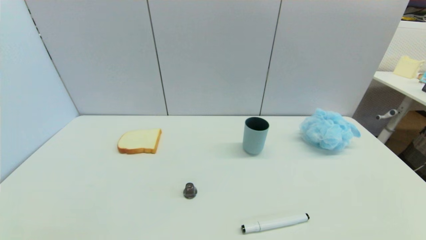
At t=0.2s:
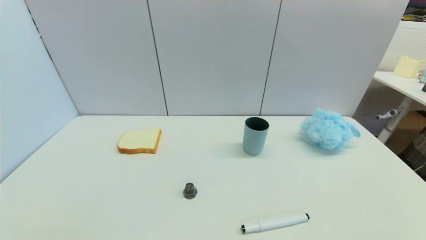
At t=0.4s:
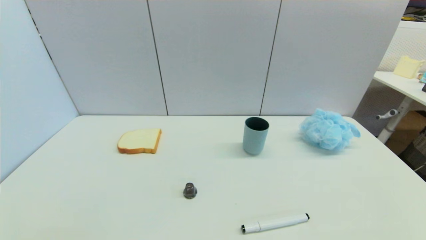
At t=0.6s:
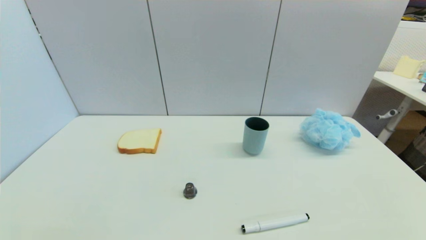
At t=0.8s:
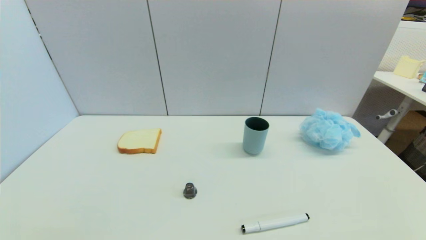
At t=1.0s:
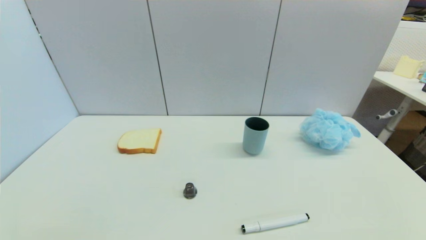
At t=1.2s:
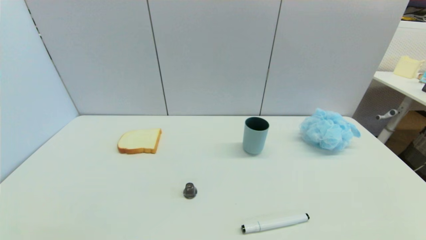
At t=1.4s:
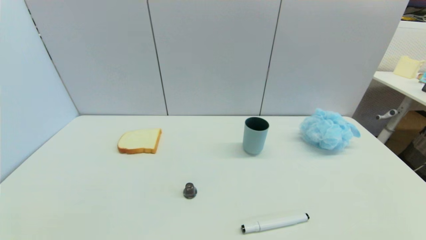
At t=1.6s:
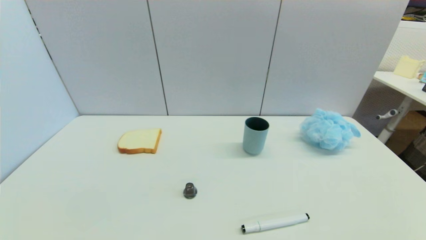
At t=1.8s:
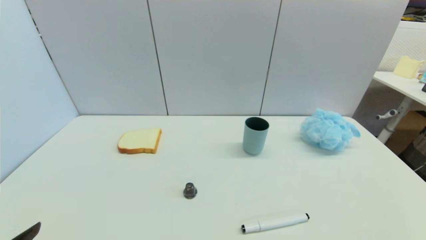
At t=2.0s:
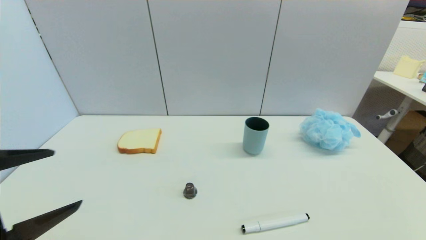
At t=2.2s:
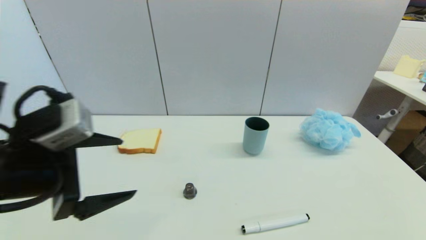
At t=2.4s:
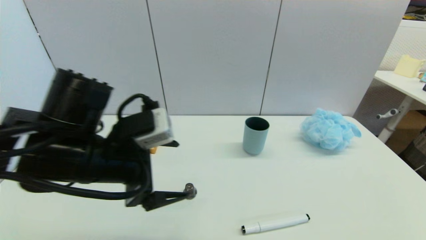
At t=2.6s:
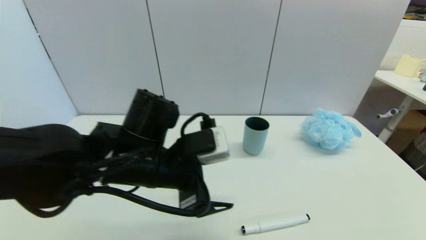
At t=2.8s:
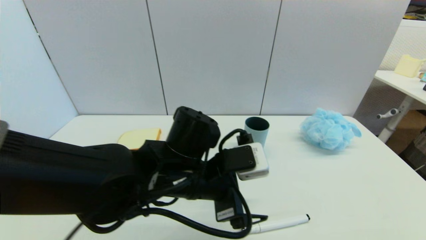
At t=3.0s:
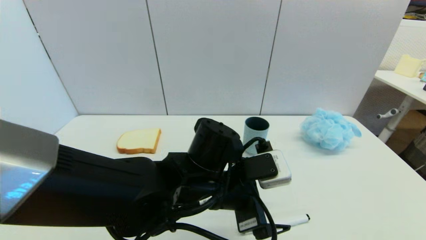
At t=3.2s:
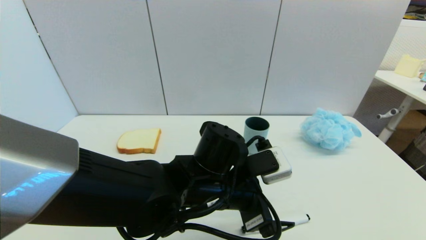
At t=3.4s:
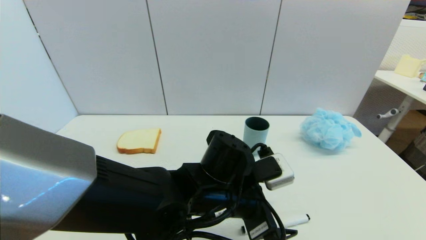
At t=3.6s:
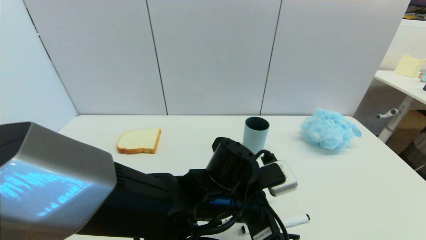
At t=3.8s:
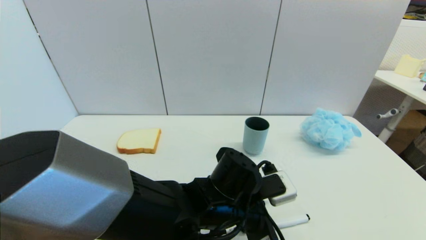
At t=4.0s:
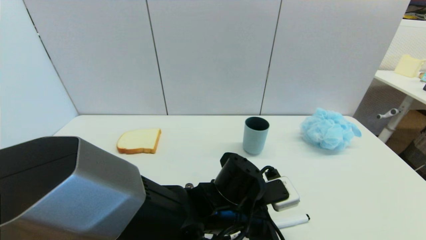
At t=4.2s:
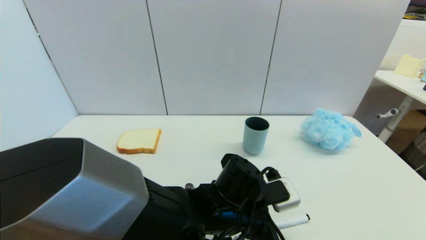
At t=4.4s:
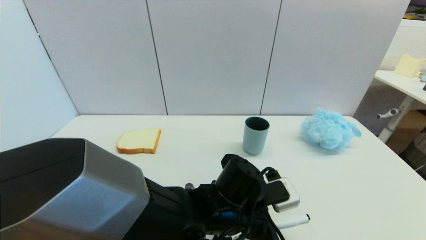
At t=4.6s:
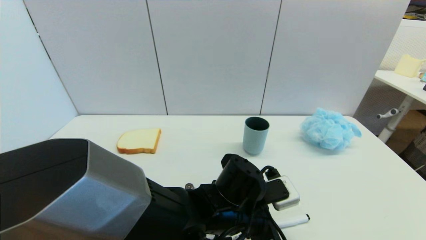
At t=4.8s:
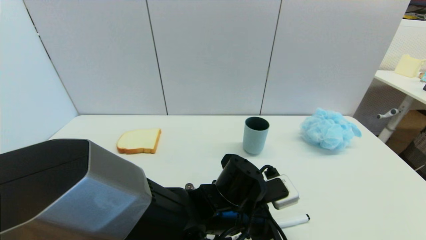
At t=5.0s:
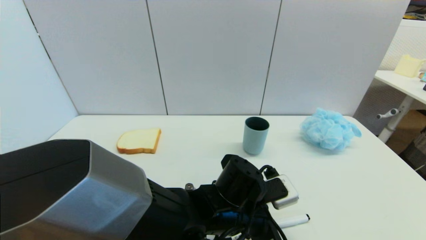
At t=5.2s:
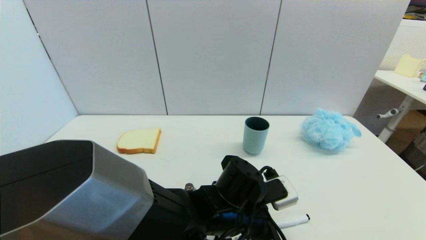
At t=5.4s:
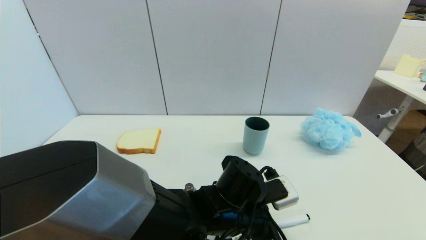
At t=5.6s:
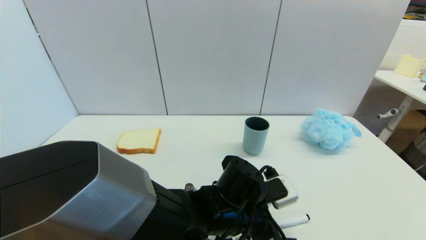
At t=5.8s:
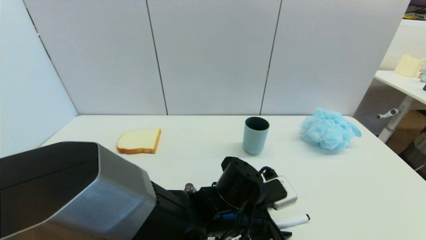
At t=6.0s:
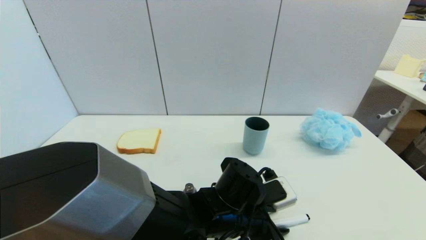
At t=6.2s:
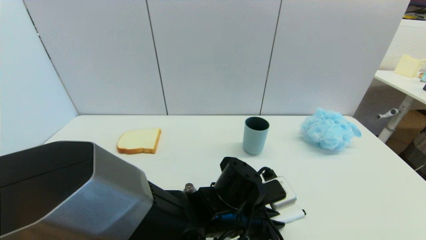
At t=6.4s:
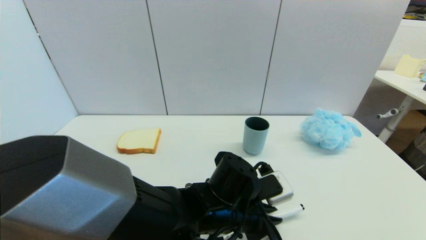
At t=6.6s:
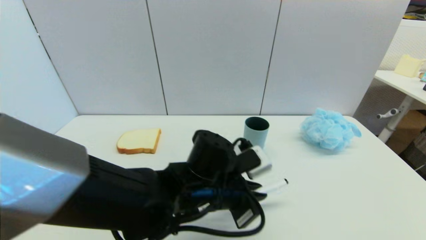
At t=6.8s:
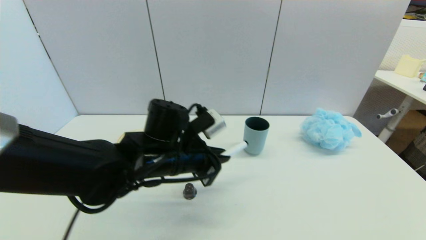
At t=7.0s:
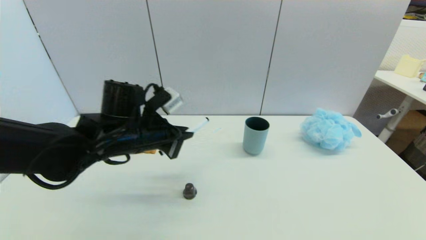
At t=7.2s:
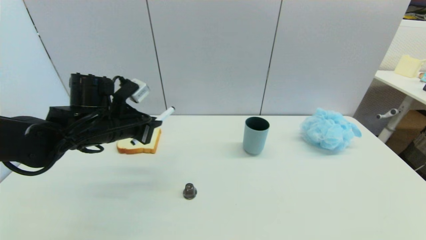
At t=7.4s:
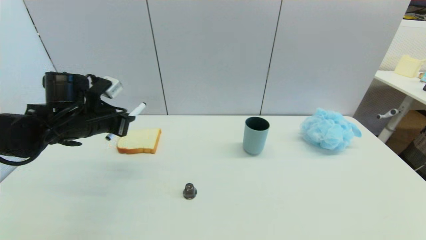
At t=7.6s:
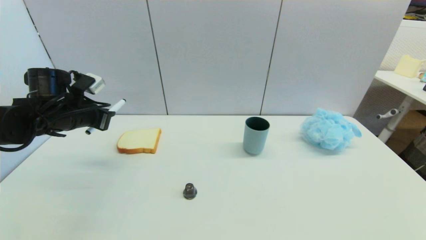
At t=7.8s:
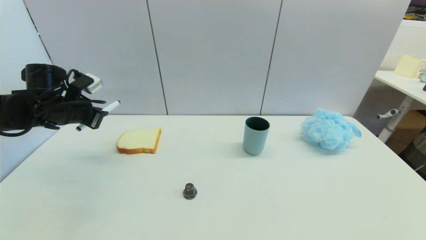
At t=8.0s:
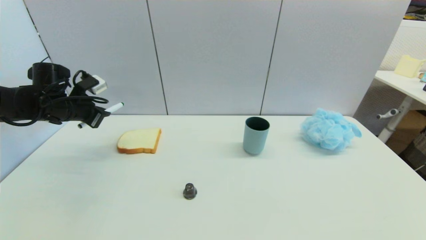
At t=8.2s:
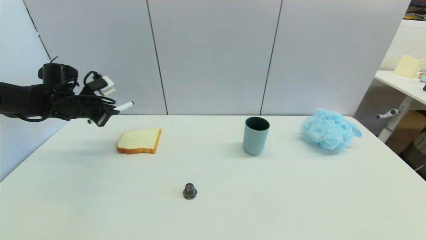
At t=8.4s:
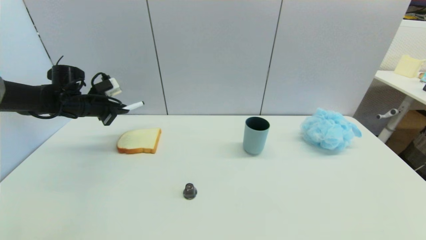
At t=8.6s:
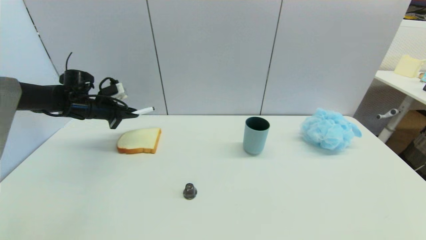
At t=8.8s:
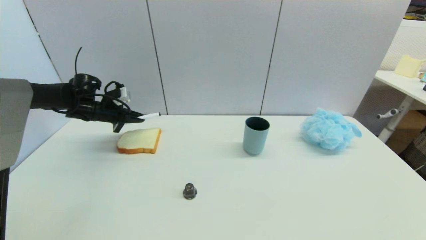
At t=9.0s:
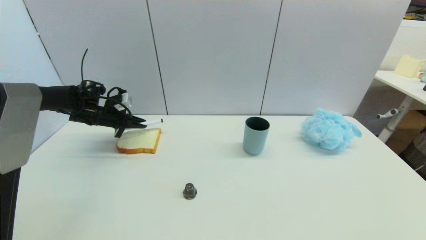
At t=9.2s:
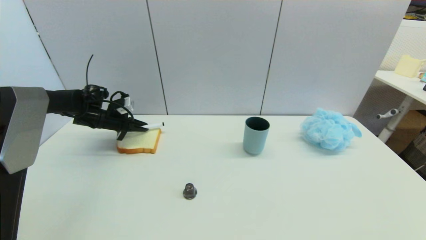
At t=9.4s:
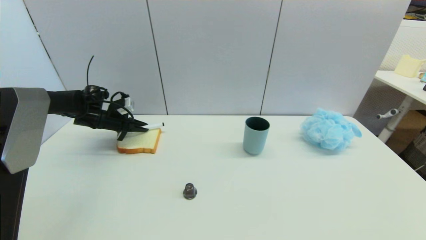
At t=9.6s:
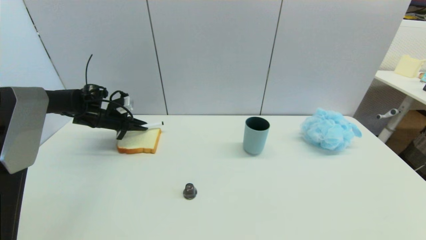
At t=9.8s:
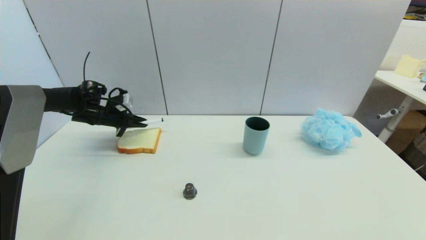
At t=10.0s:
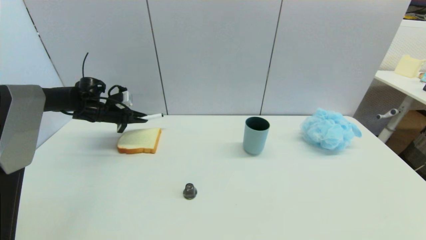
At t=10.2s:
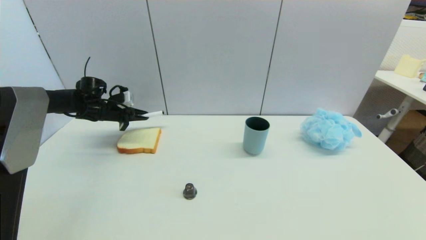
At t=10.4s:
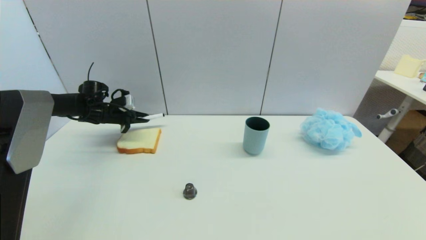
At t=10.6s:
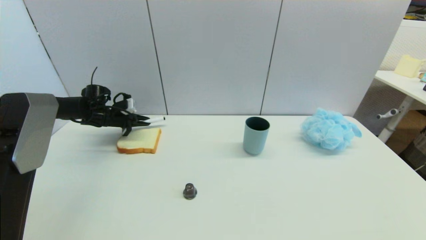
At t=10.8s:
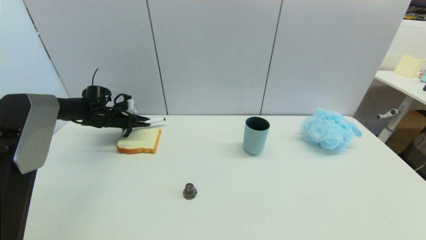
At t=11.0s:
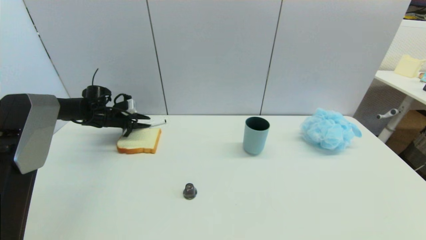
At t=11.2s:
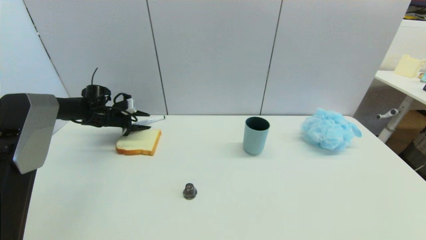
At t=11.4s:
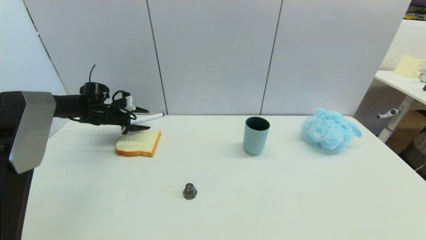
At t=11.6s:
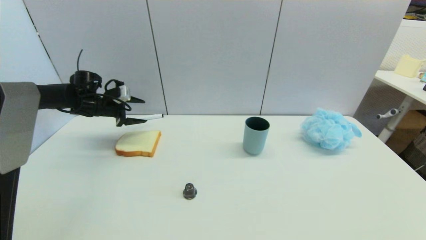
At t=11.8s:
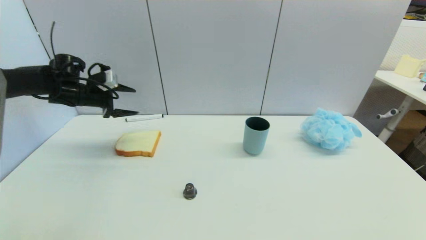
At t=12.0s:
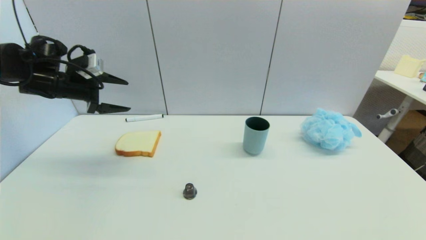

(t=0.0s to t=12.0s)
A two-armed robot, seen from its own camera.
Task of the whole recording: put the black marker in the designated position.
Step, t=1.8s - t=6.0s: Grasp the Marker pen with left gripper.
Step, t=6.2s - t=11.2s: Place the Marker pen on the table with left gripper.
t=1.6s - t=3.0s: The left gripper shifts roughly 35 cm to the right and forward.
t=3.0s - t=4.4s: The left gripper travels downward by some 5 cm.
t=4.4s - t=6.0s: The left gripper closes its fingers.
t=6.0s - t=7.6s: The left gripper heads to the left and forward, covering about 35 cm.
t=7.6s - t=9.0s: The left gripper heads forward and downward, covering about 15 cm.
t=9.0s - t=10.4s: The grippers make only small movements.
t=10.4s - t=12.0s: The left gripper moves upward and backward, some 15 cm, and opens.

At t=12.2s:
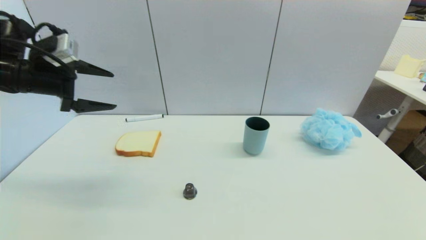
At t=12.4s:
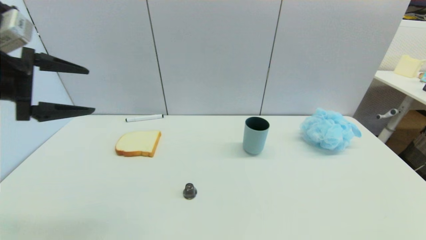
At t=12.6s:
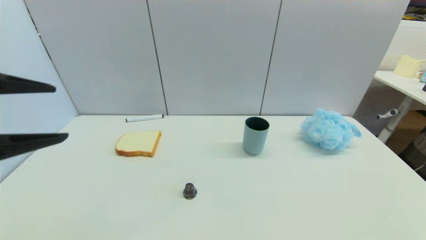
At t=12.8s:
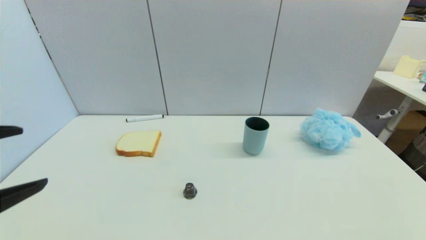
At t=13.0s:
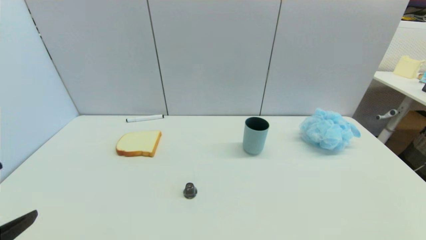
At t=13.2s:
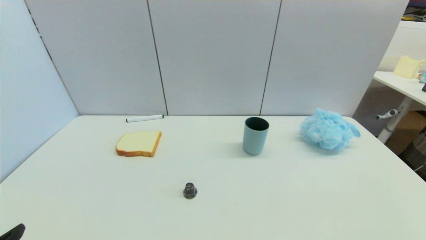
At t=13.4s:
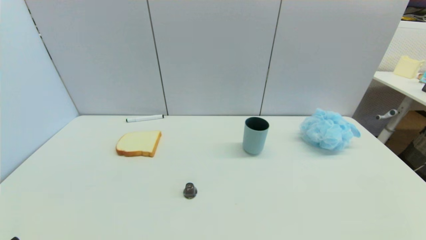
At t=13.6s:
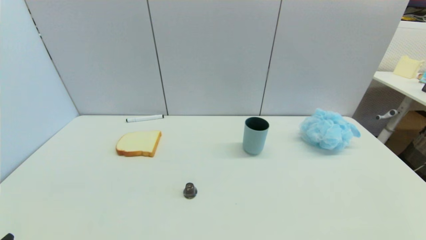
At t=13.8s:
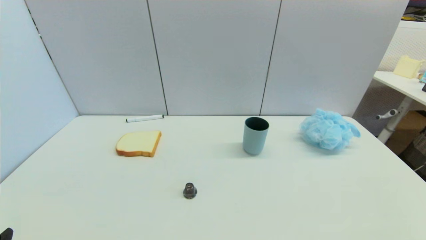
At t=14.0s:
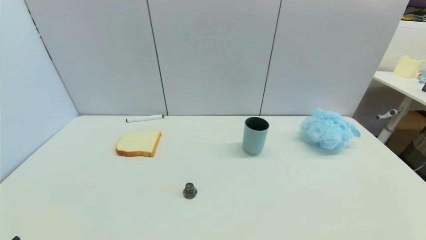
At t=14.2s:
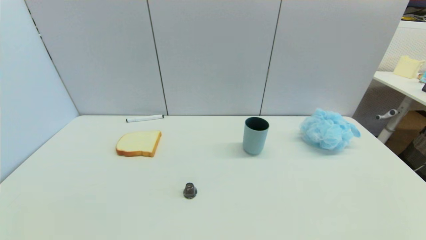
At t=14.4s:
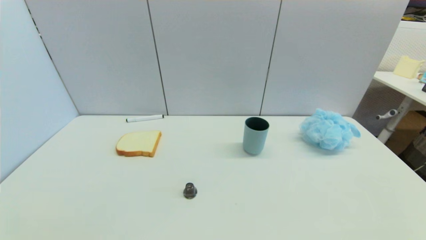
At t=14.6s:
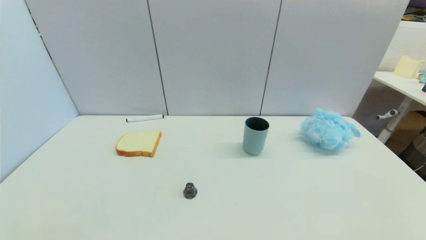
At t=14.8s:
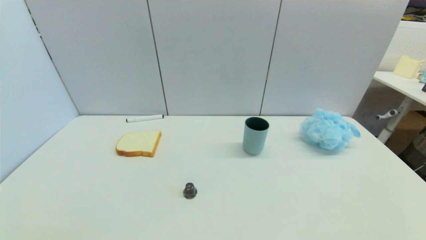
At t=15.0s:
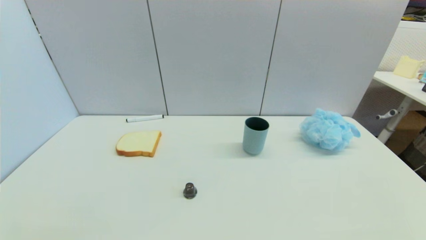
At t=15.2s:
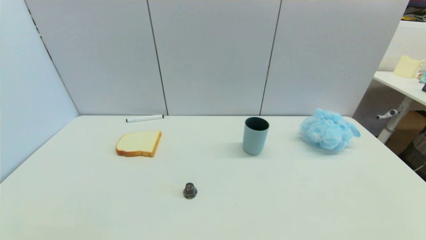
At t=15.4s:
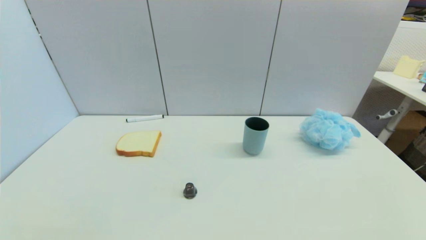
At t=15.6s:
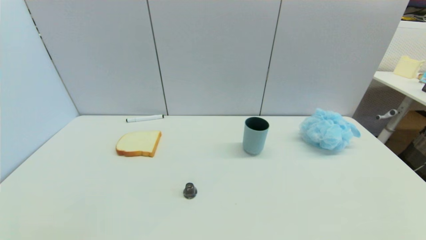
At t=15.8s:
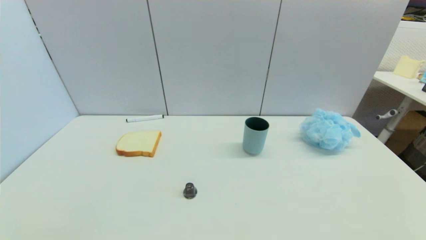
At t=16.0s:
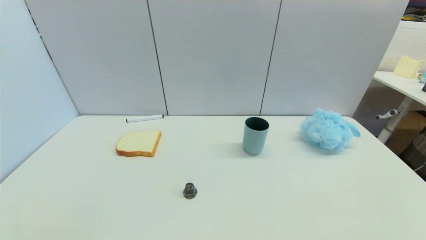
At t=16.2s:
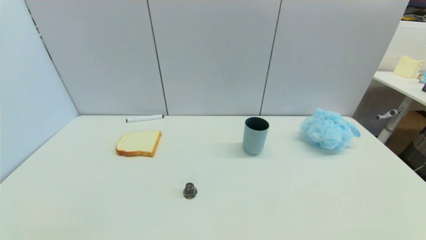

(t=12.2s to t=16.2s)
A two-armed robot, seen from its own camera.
Task of the whole recording: put the black marker in the designated position.
t=12.2s - t=13.6s: The left gripper is displaced backward by about 30 cm.
t=14.8s - t=16.2s: The two grippers keep their place.
